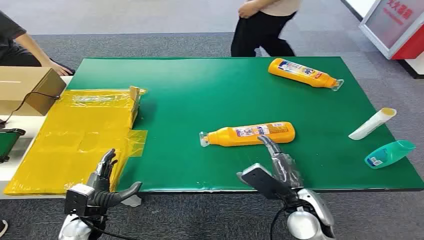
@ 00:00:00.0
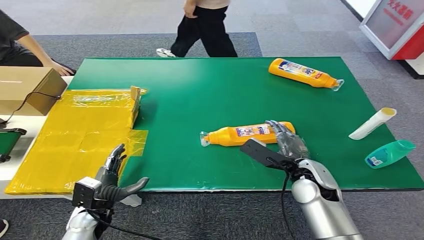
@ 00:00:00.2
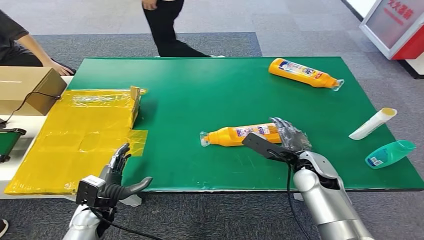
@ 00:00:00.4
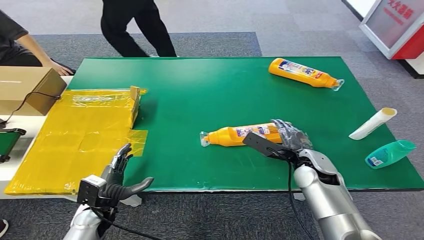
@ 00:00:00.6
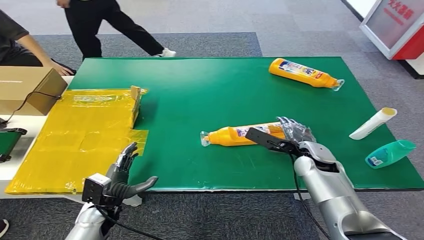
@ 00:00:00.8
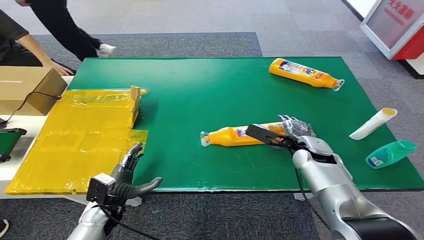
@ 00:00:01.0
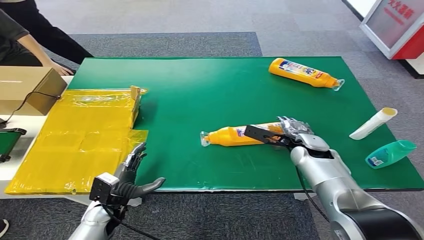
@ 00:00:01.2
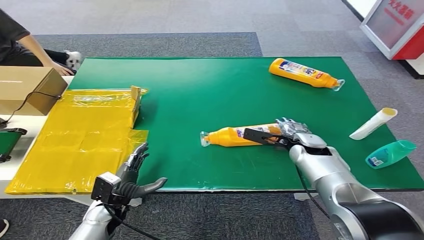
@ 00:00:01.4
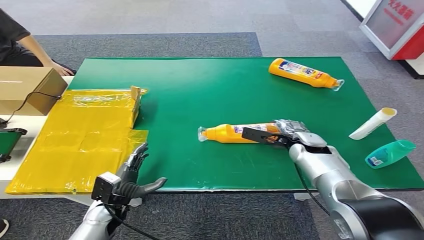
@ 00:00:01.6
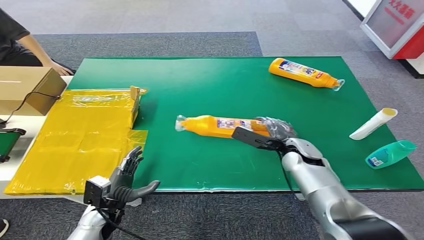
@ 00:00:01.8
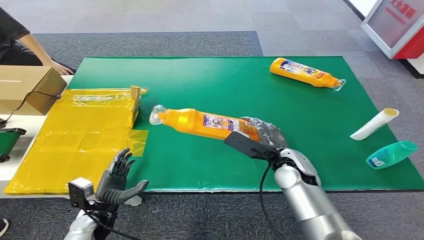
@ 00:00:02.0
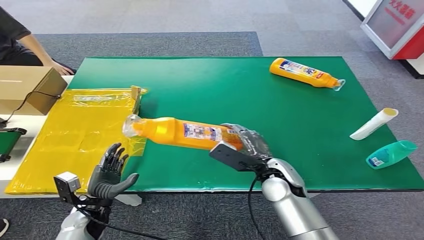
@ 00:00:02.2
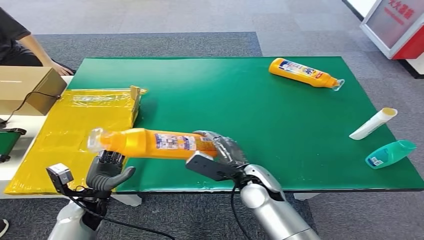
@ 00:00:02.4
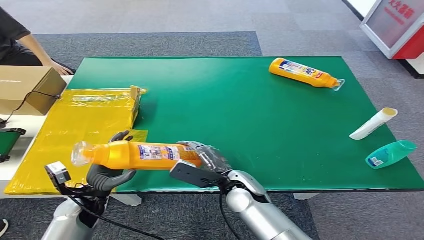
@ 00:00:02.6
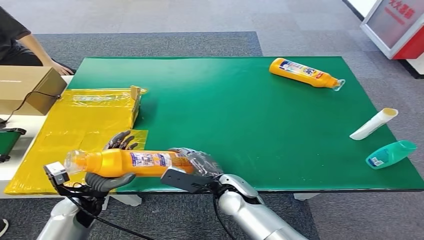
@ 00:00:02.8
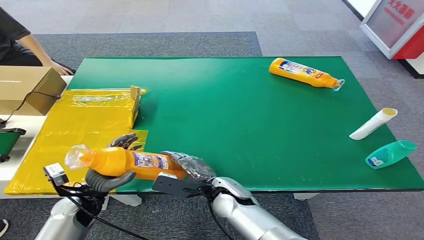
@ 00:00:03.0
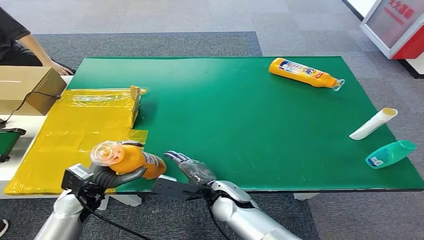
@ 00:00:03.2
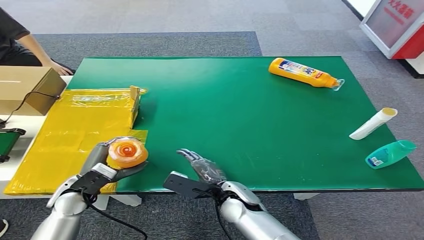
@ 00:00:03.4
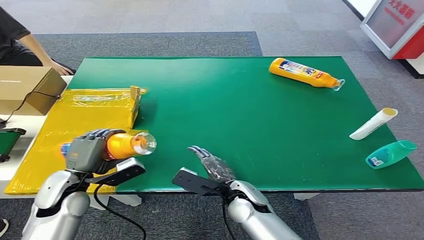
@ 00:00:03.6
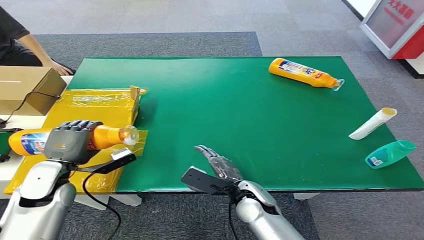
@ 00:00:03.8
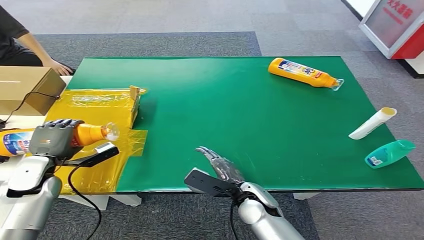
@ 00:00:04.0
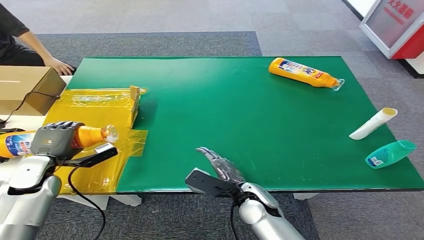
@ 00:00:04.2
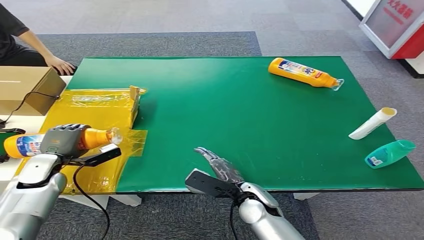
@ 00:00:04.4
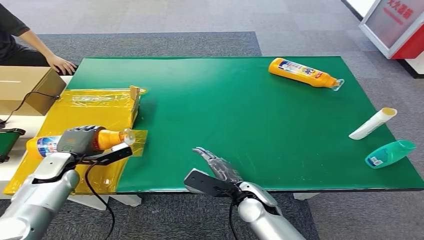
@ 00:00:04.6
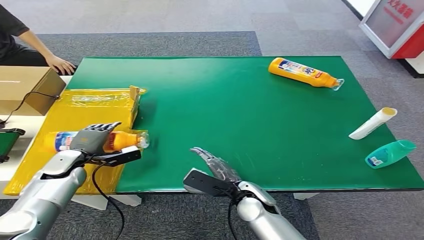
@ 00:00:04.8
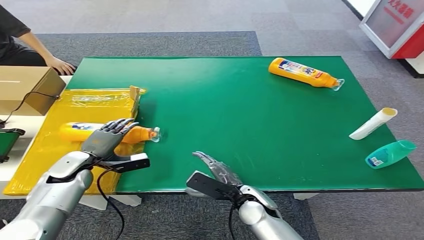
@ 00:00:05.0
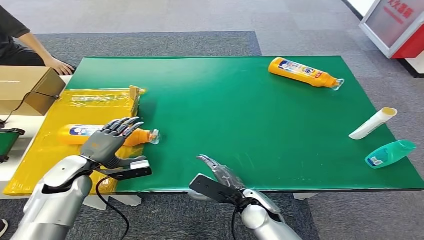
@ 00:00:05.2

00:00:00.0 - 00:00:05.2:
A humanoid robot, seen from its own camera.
Step, 00:00:00.0 - 00:00:02.2: Pick up the bottle from the table.
Step, 00:00:02.4 - 00:00:05.2: Turn the bottle to the front side.
00:00:01.8 - 00:00:03.4: The right hand moves to the left and backward, approximately 20 cm, while the left hand is displaced upward by roughly 10 cm.
00:00:03.4 - 00:00:05.2: The left hand travels forward by about 5 cm; the right hand ends up about 5 cm from where it was.

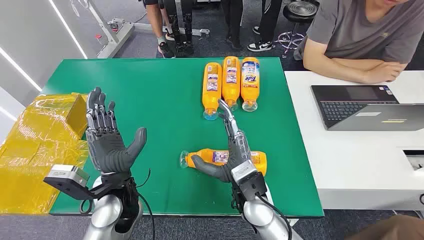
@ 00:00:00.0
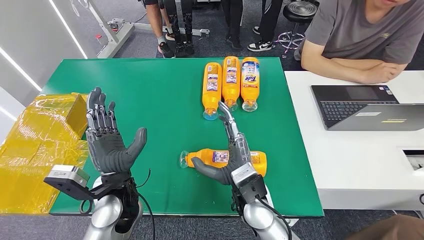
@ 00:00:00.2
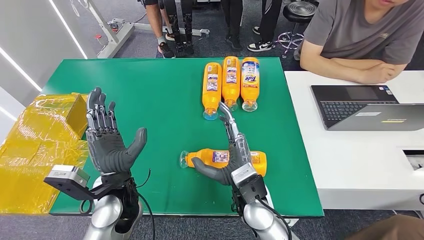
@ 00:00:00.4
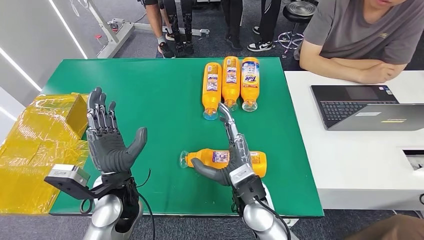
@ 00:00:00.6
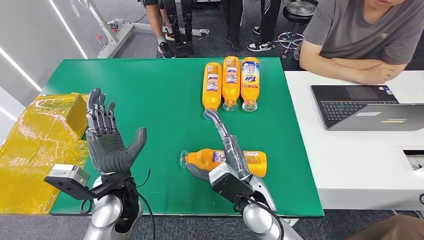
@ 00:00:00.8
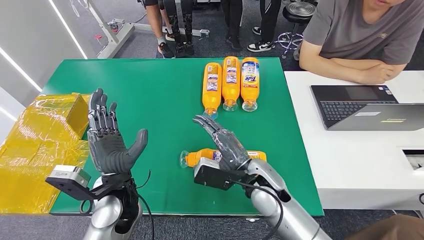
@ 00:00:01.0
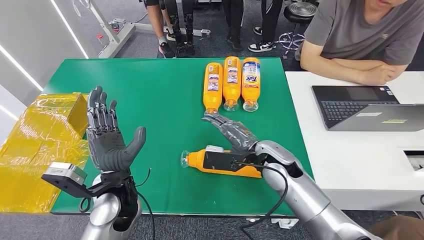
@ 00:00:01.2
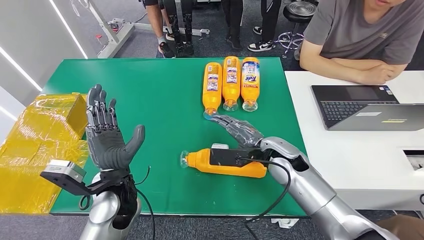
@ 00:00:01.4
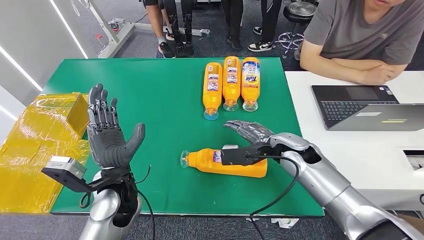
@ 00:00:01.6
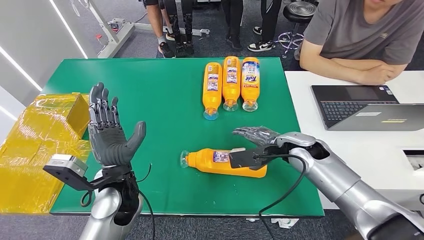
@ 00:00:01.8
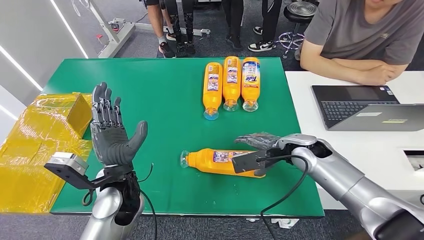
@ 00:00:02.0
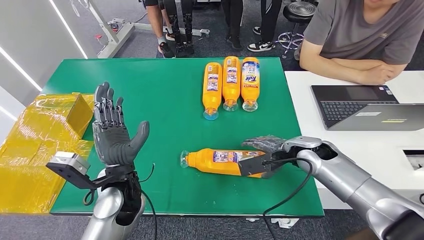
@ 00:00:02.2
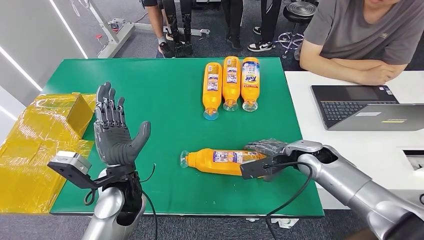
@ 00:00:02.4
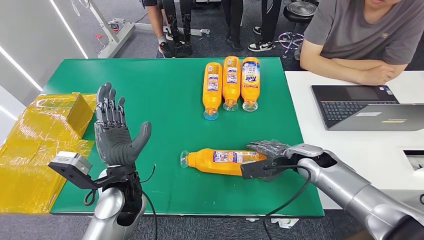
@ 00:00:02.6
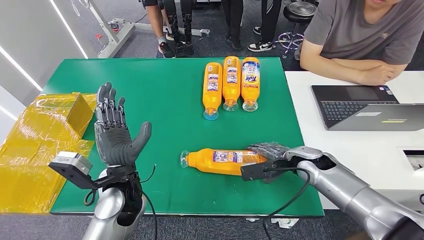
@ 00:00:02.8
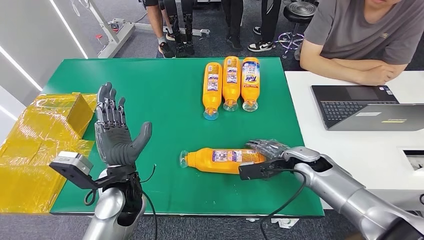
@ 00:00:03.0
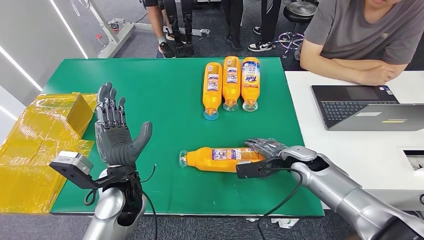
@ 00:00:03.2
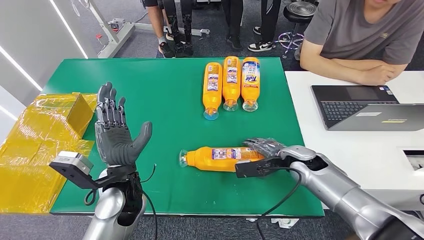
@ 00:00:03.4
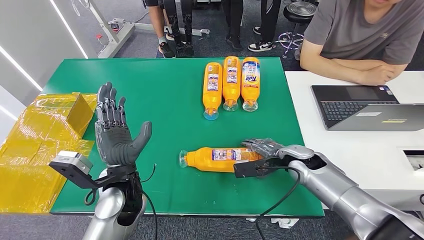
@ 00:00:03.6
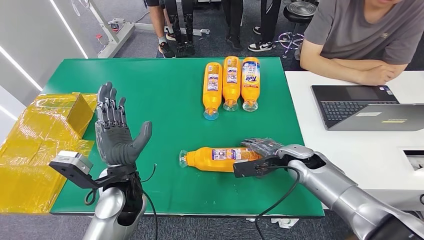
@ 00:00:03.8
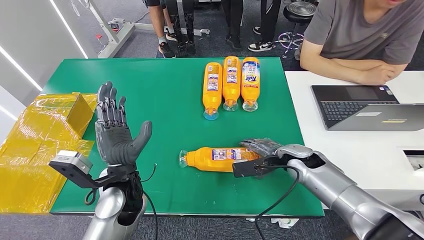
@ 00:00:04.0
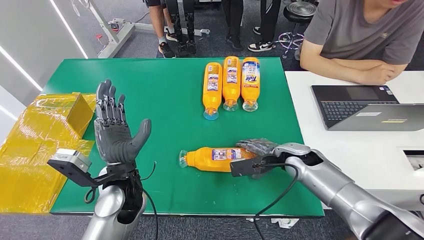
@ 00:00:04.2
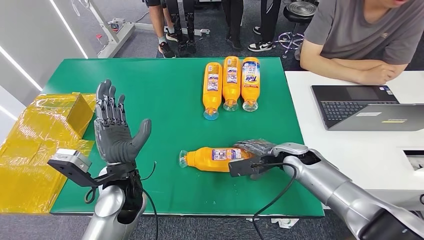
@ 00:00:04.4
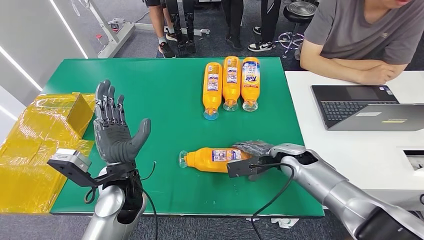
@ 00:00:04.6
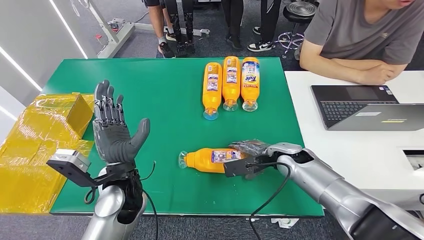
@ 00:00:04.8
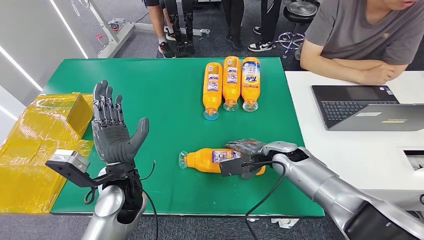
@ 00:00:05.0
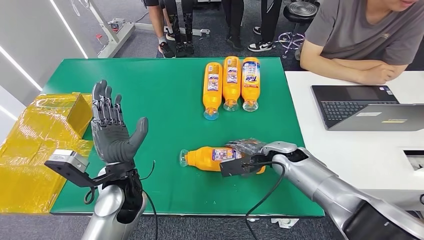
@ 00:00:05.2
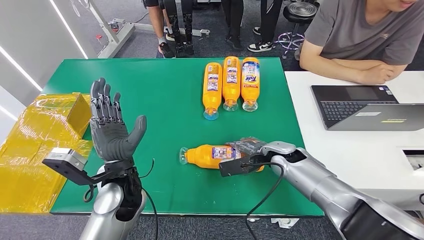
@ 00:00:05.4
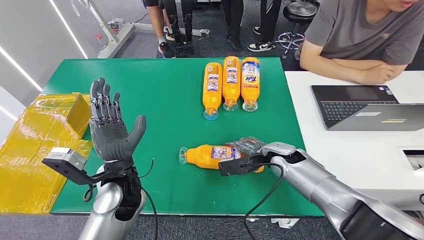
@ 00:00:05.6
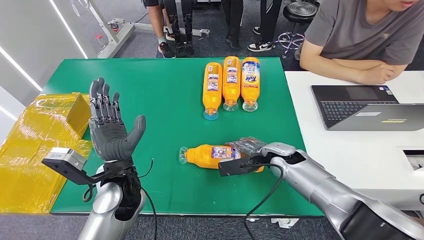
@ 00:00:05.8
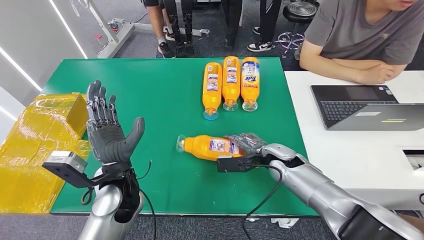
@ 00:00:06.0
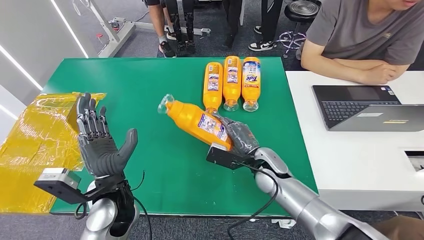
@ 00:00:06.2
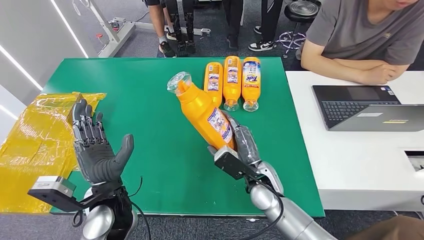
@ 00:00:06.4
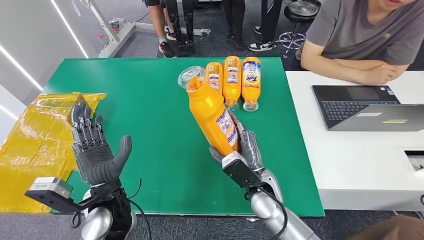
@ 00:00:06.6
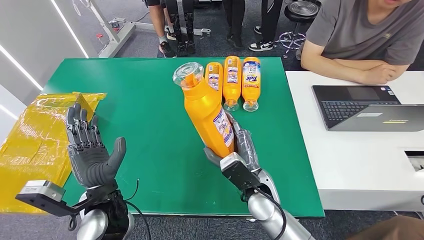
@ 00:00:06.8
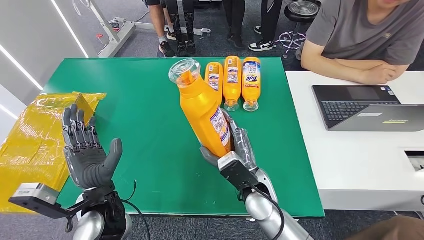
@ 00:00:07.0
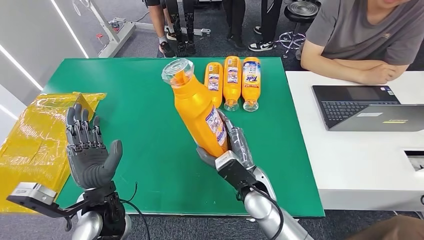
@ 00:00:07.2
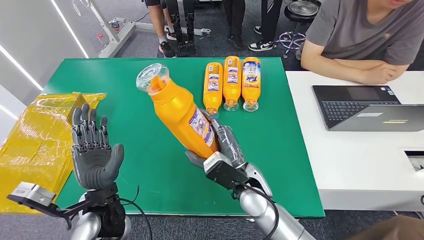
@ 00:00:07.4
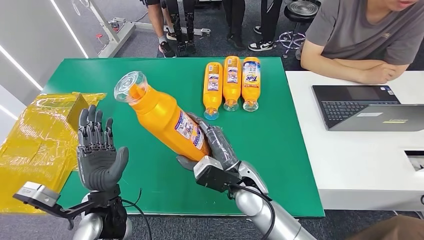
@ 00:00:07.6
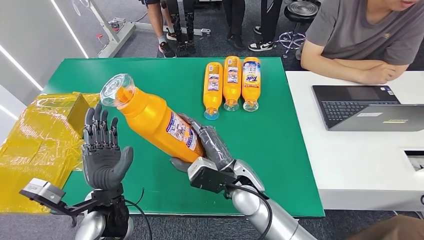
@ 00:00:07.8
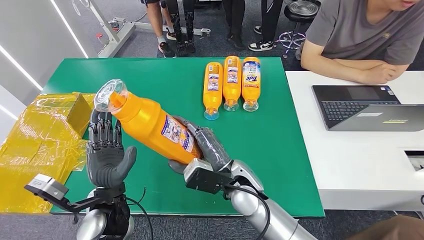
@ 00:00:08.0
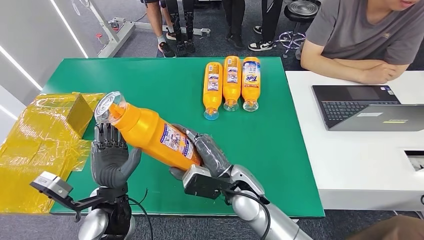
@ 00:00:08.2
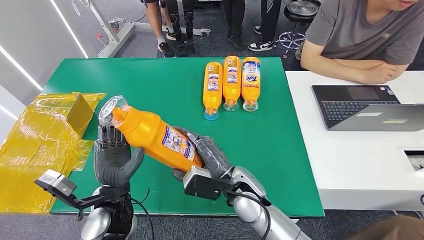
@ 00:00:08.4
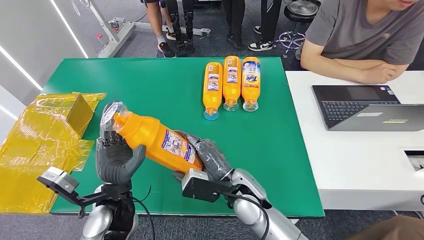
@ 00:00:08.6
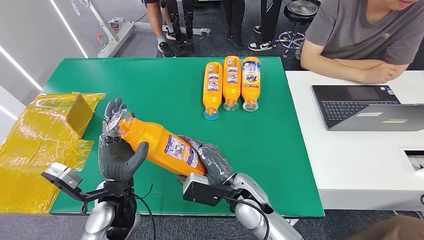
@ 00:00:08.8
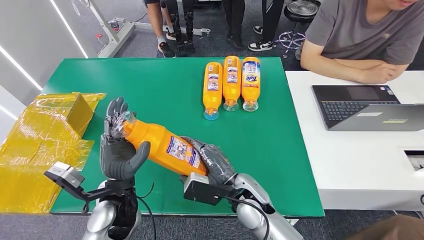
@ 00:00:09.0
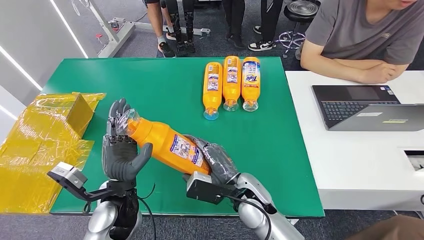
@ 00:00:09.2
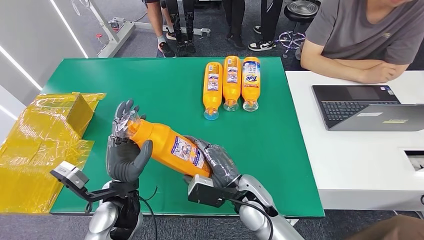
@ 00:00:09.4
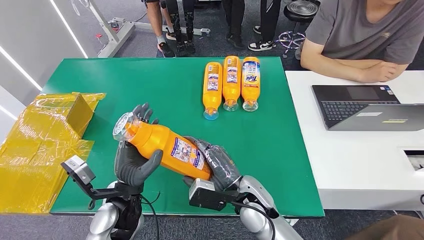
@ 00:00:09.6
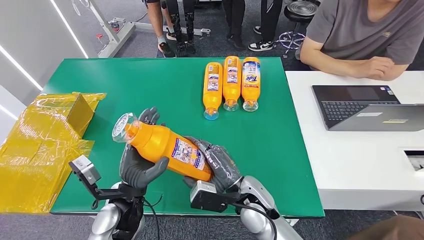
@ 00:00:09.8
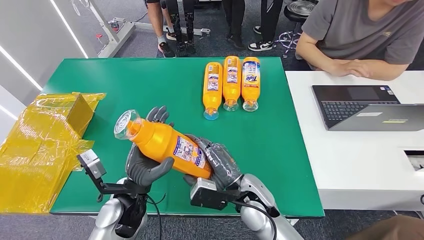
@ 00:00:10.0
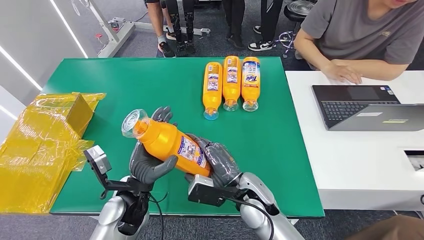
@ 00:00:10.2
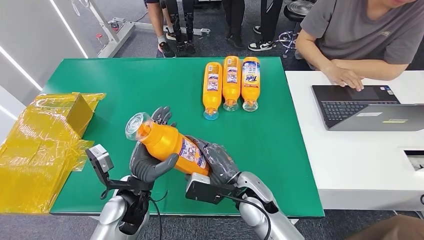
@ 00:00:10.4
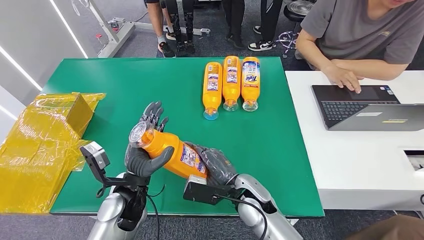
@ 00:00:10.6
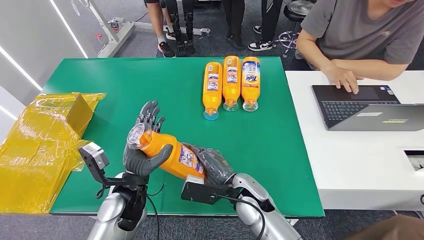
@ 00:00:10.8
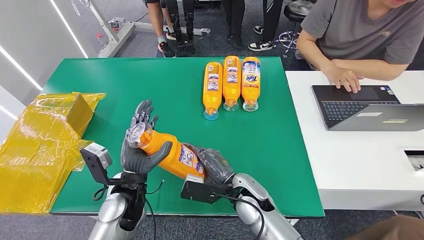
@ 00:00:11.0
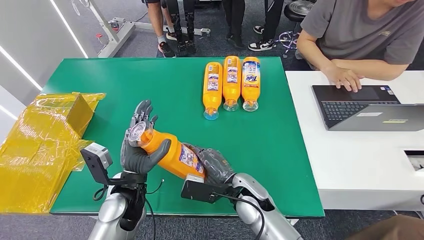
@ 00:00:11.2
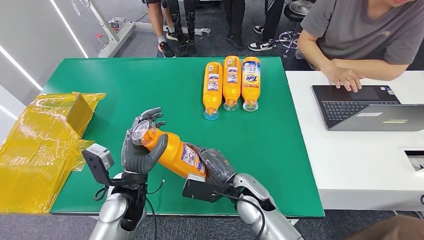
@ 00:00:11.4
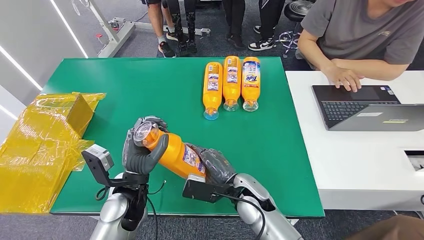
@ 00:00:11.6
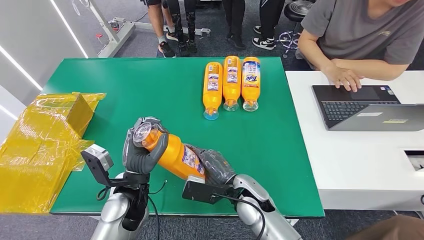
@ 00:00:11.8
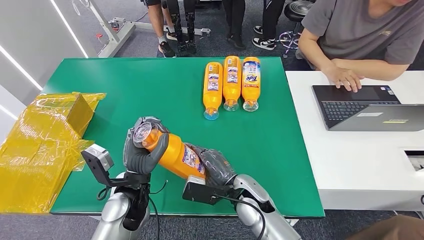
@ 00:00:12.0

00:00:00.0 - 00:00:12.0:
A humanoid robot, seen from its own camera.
Step, 00:00:00.0 - 00:00:09.0: Pick up the bottle from the table.
00:00:01.6 - 00:00:03.0: The right hand moves to the right and downward, roughly 10 cm.
00:00:03.0 - 00:00:04.4: The hands stay close to where they were, moving slightly.
00:00:04.4 - 00:00:06.0: The hands move only a little.
00:00:07.6 - 00:00:09.0: The hands move only a little.
00:00:10.4 - 00:00:12.0: There are only small adjustments of the hands.
